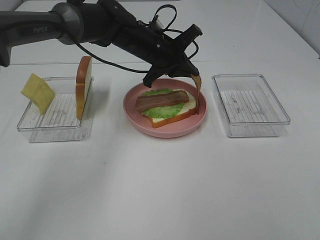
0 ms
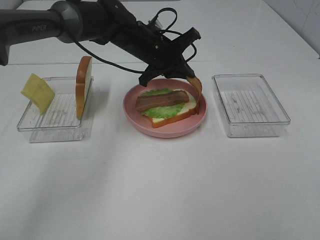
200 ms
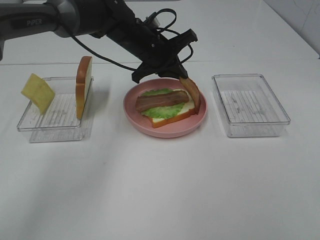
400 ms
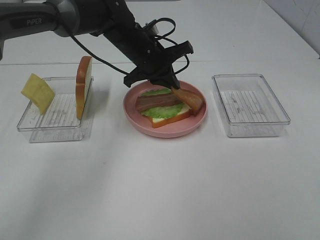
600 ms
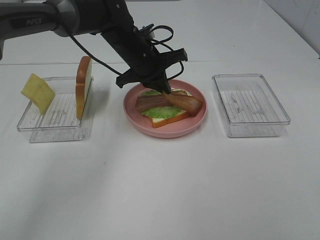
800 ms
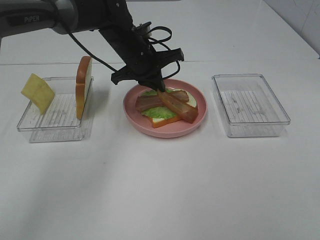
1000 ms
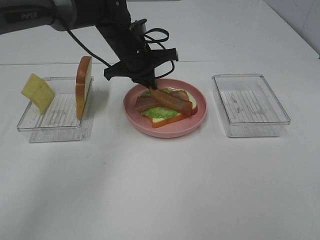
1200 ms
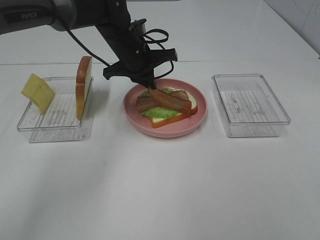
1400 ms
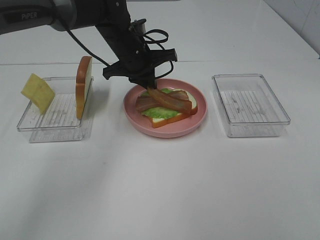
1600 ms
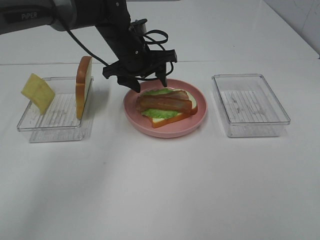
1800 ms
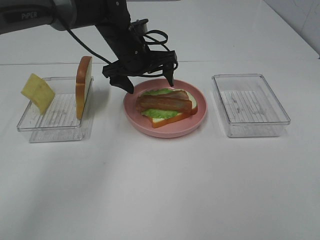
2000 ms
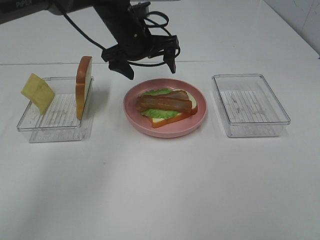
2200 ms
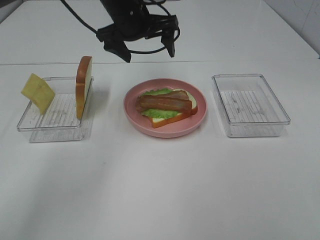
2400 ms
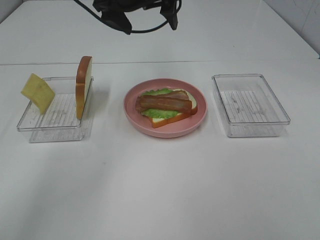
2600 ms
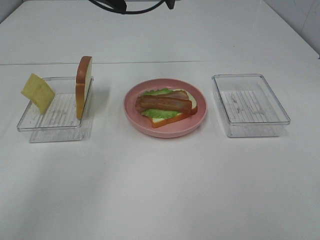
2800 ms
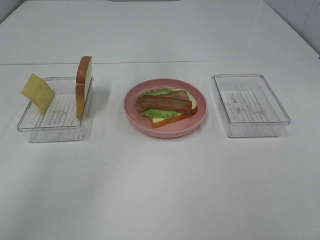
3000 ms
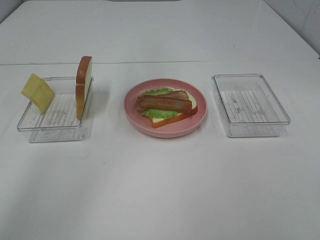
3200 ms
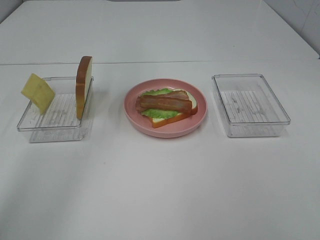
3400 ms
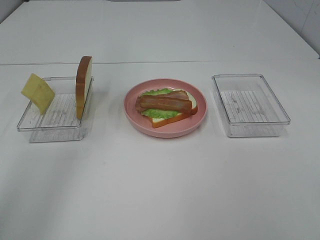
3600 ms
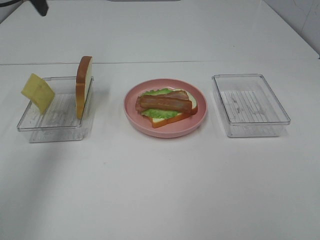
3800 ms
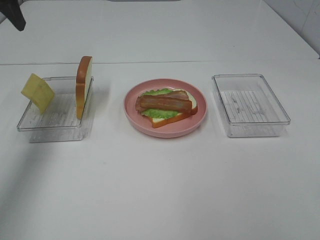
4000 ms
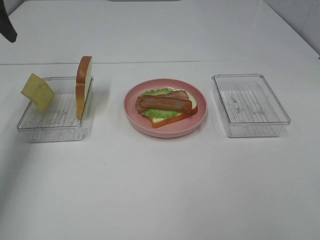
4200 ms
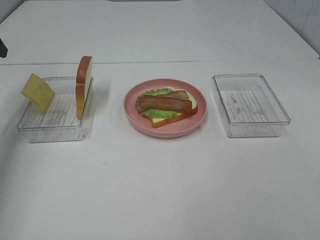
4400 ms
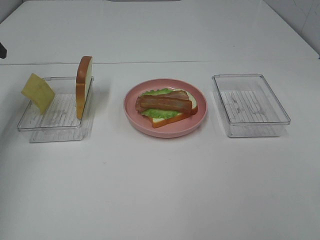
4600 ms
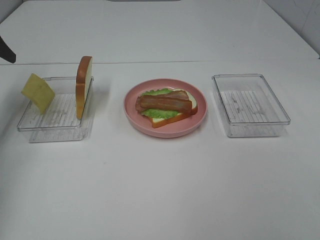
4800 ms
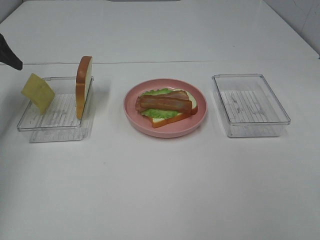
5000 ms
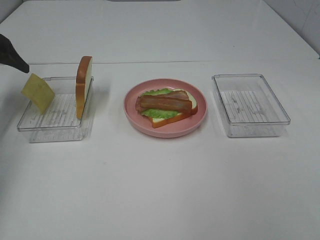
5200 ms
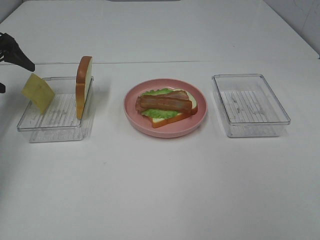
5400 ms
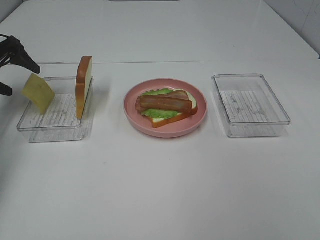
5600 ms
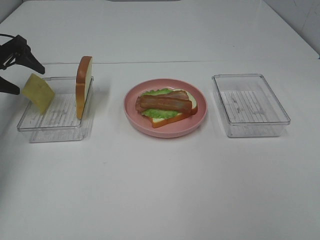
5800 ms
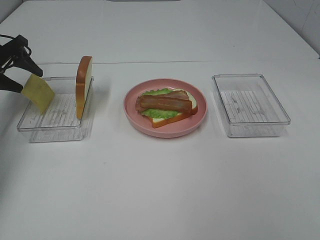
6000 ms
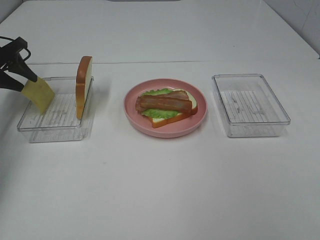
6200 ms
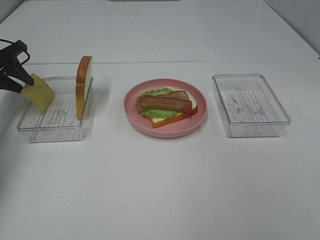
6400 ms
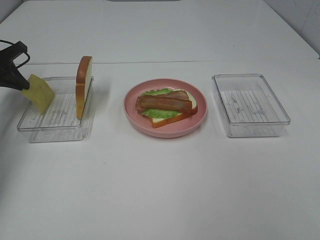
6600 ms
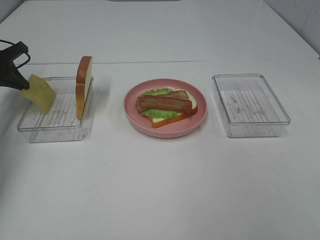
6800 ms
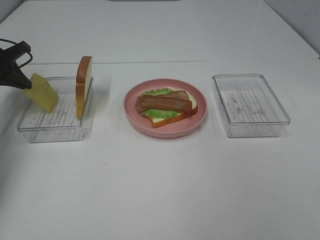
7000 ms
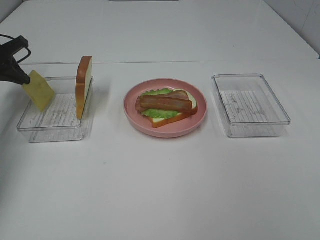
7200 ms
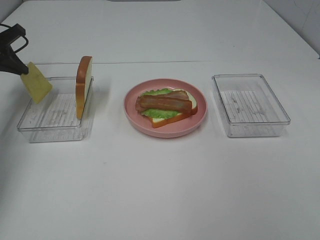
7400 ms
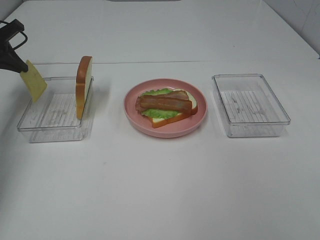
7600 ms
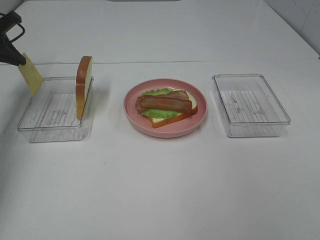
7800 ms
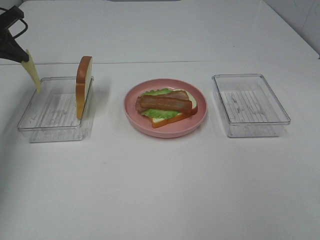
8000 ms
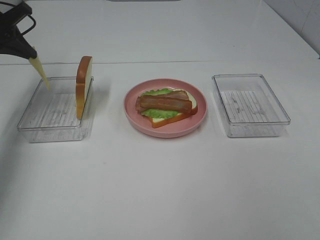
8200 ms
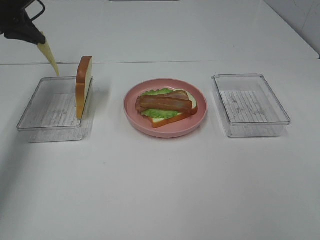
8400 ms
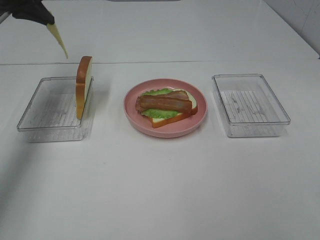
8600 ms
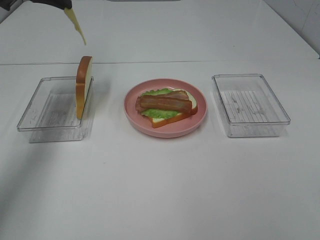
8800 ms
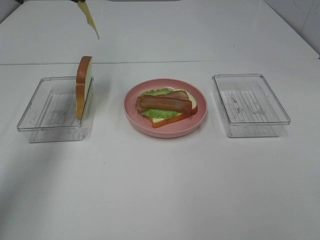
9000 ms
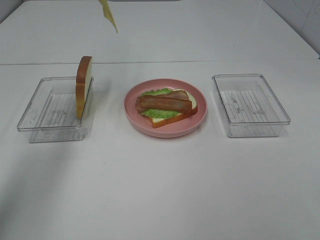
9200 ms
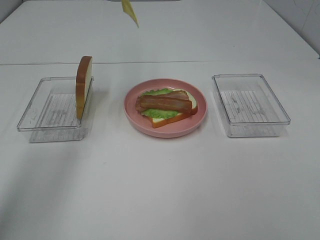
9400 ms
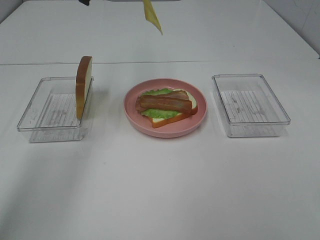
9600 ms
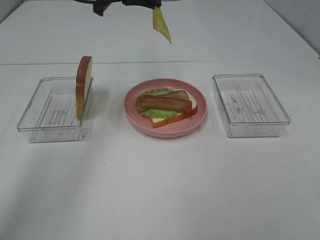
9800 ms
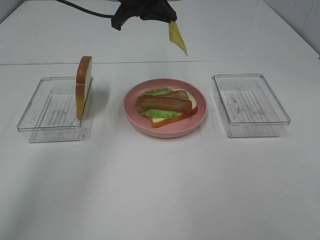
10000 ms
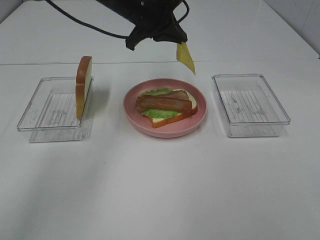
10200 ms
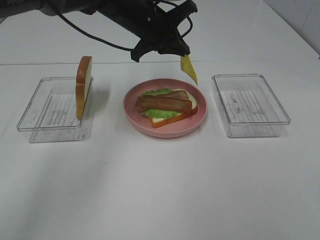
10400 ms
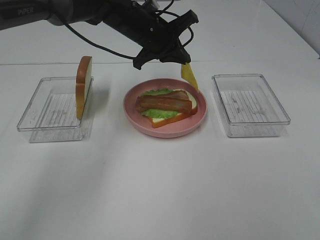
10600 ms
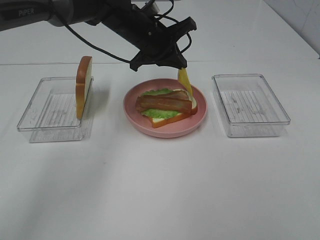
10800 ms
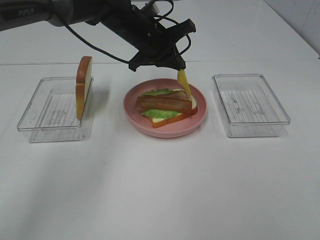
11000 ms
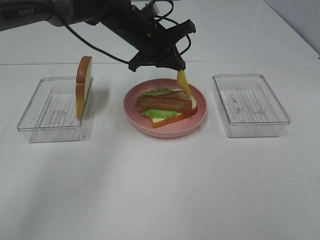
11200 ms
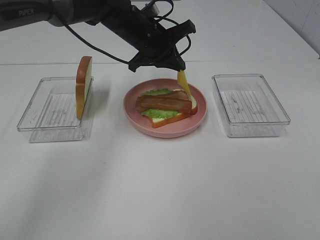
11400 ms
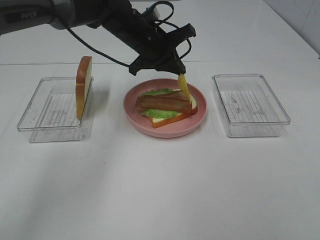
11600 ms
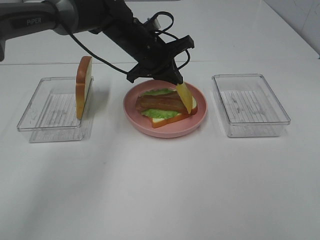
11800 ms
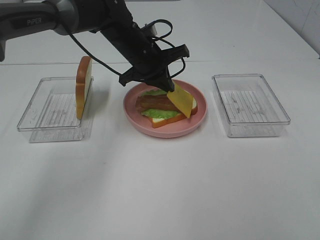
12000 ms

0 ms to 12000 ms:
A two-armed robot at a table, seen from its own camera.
Task of the whole recording: Make sandwiches.
Step, 0 ms to 2200 ms: Left hand:place bacon on bacon.
Step, 2400 ms to 7000 ms: Left hand:grab the cheese slice.
1600 ms to 3000 ms: The left gripper goes roughly 20 cm upward, and opens.
3000 ms to 4400 ms: The left gripper moves to the left, roughly 30 cm.
4400 ms to 6000 ms: The left gripper is displaced downward and forward by approximately 15 cm, and closes.
6000 ms to 7600 ms: The left gripper closes up.
7600 ms to 9000 ms: The left gripper travels to the right and upward by about 20 cm.
9000 ms to 10400 ms: The left gripper goes approximately 20 cm to the right and downward.
10400 ms to 12000 ms: The left gripper moves downward, about 5 cm.

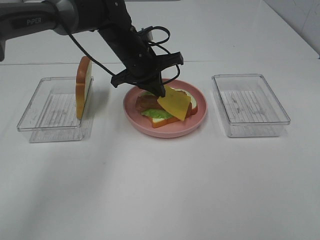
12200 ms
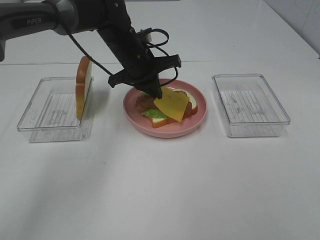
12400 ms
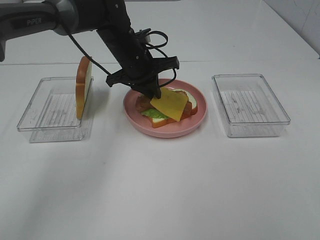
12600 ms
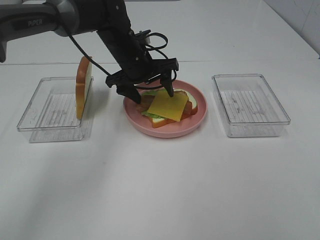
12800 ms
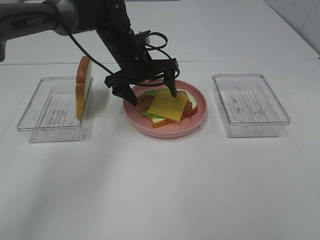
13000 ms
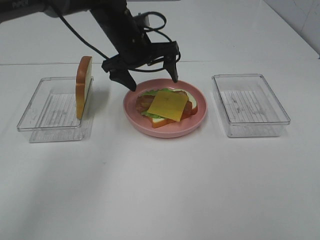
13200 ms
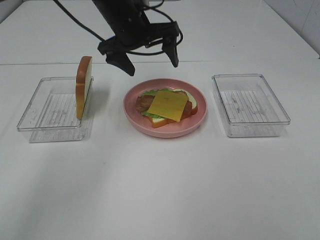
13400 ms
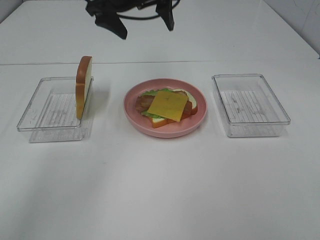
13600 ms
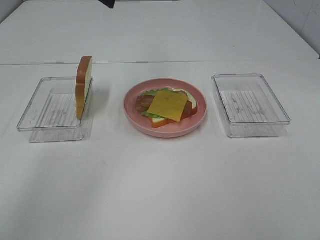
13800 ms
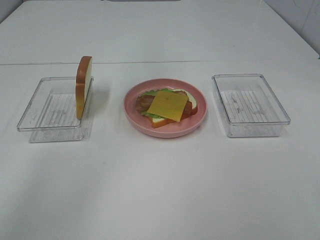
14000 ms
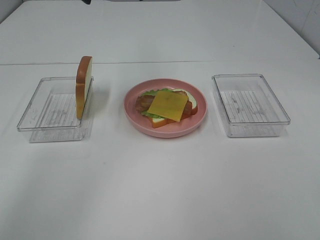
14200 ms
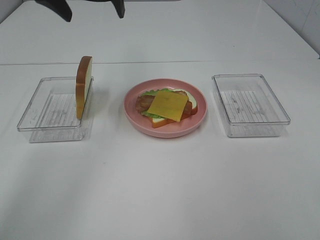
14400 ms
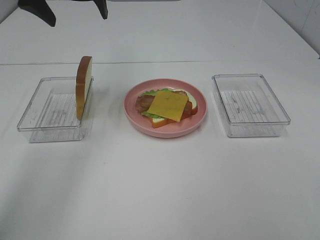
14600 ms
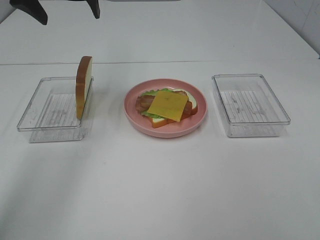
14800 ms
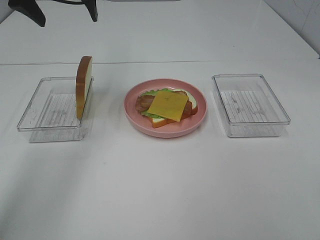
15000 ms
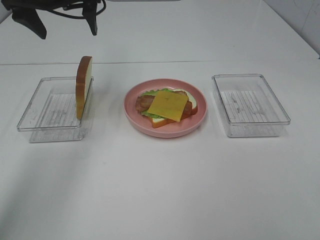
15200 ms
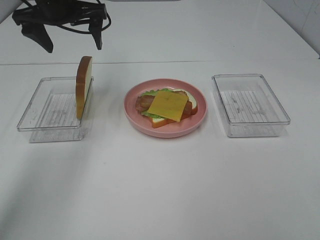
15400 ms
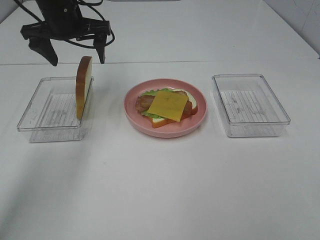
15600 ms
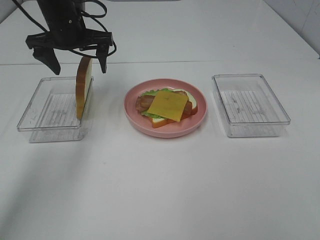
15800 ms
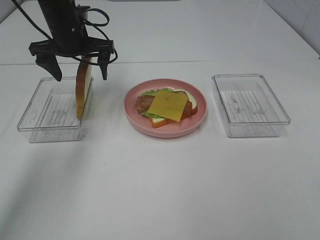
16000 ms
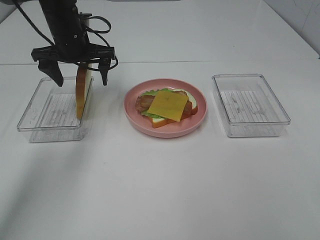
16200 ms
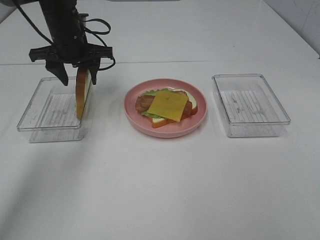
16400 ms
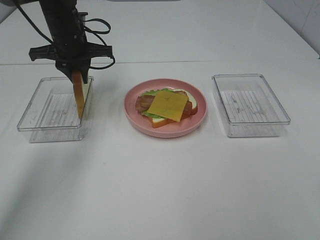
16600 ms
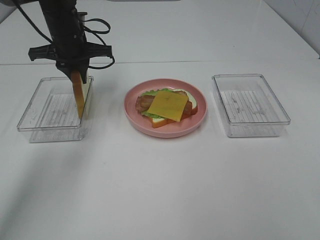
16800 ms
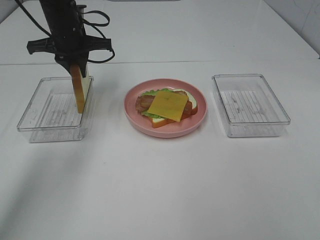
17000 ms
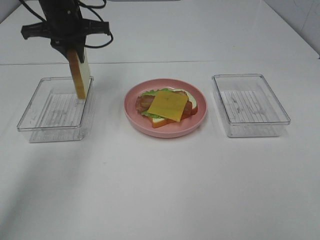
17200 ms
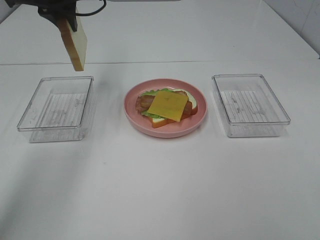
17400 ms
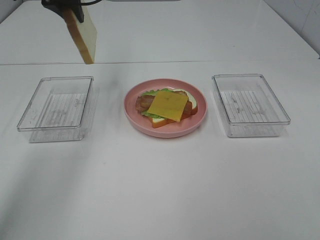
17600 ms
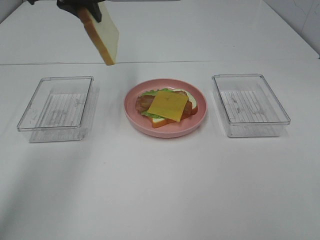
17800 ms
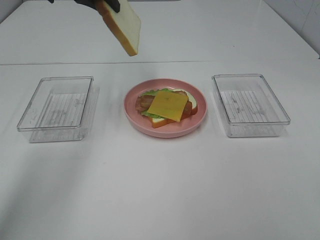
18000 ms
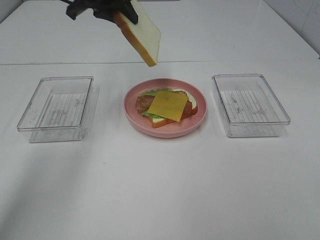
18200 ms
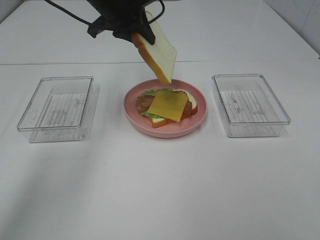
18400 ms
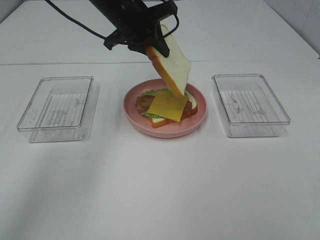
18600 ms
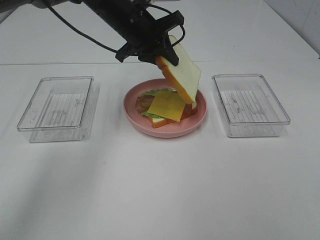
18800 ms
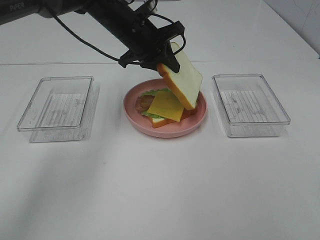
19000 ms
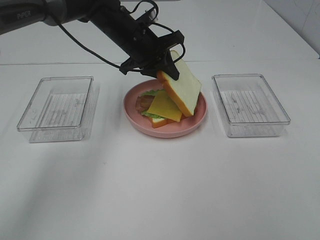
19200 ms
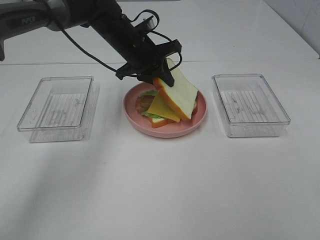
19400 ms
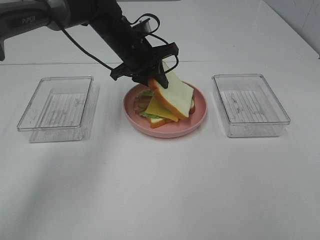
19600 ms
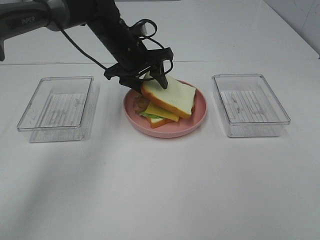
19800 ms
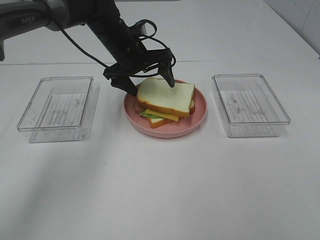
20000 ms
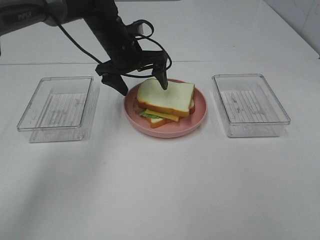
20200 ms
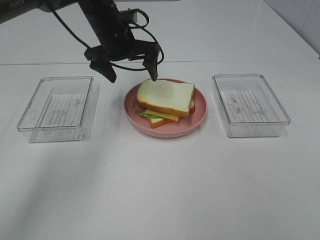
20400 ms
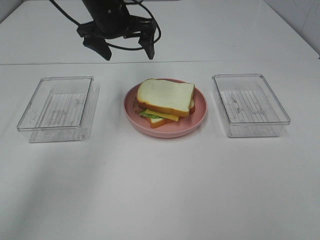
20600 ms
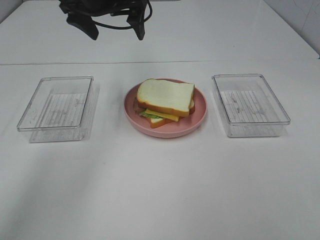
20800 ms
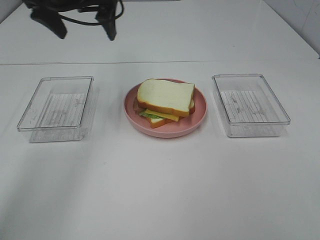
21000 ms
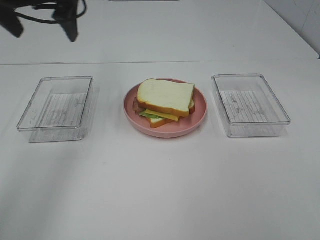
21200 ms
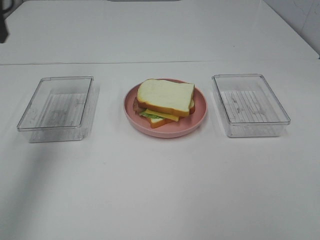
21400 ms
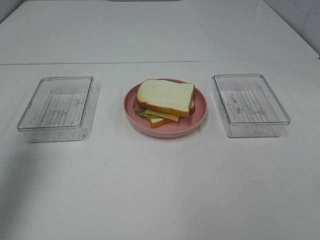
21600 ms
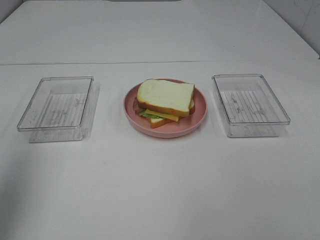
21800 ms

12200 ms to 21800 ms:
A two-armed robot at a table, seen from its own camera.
Task of the whole recording: Make sandwiches.
Step, 13000 ms to 17000 ms: Left hand:grab the bread slice.
Step, 17200 ms to 20200 ms: Left hand:place the bread slice on the cheese slice.
12200 ms to 13800 ms: The left gripper heads upward, covering approximately 20 cm, and opens its fingers.
13800 ms to 15400 ms: The left gripper is displaced to the left and downward by roughly 10 cm.
15400 ms to 17000 ms: The left gripper heads downward, covering some 5 cm, and closes.
17000 ms to 18600 ms: The left gripper goes about 10 cm to the right, and reaches about 10 cm upward, then returns.
18600 ms to 20200 ms: The left gripper is displaced downward by about 5 cm, and opens its fingers.
20200 ms to 21800 ms: The left gripper moves backward, to the left and upward, roughly 40 cm.
